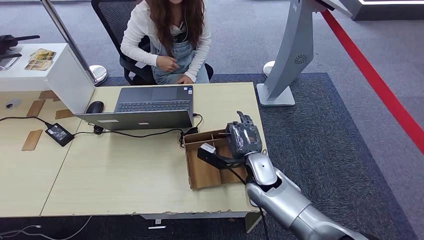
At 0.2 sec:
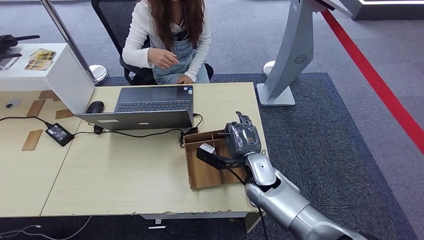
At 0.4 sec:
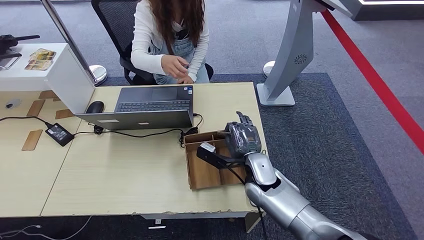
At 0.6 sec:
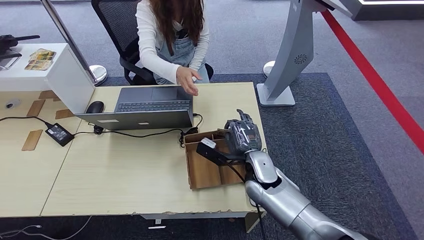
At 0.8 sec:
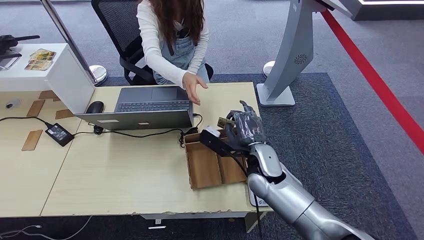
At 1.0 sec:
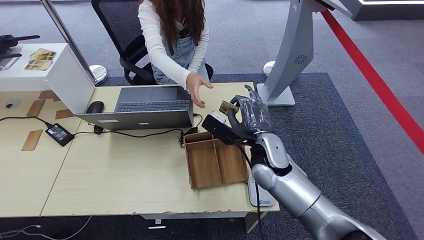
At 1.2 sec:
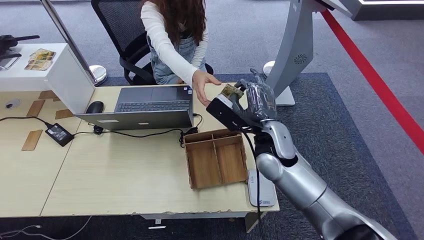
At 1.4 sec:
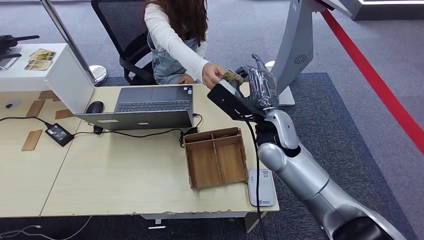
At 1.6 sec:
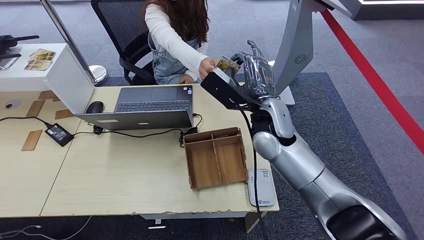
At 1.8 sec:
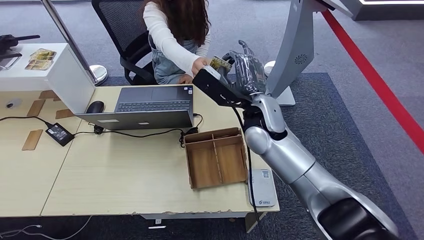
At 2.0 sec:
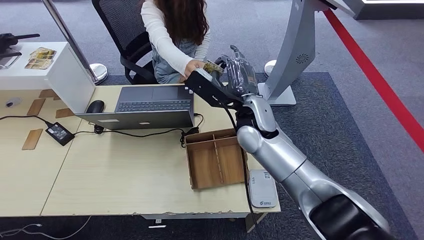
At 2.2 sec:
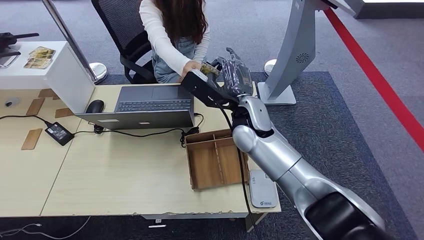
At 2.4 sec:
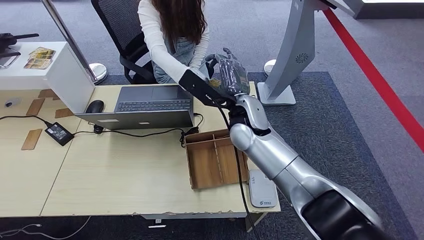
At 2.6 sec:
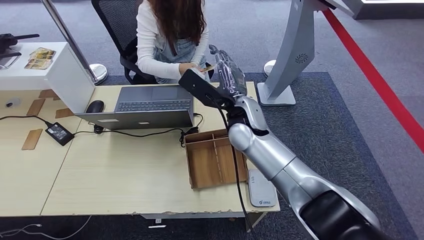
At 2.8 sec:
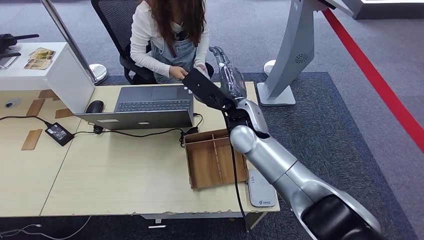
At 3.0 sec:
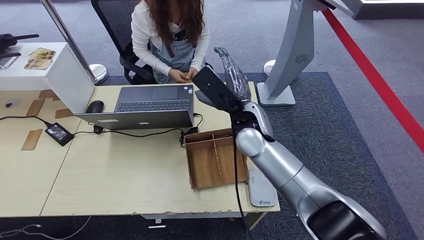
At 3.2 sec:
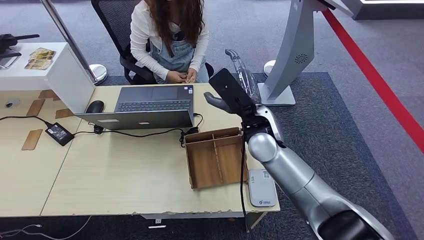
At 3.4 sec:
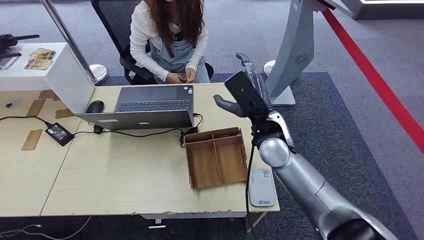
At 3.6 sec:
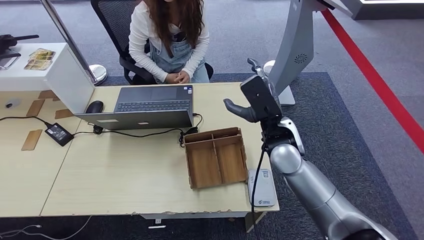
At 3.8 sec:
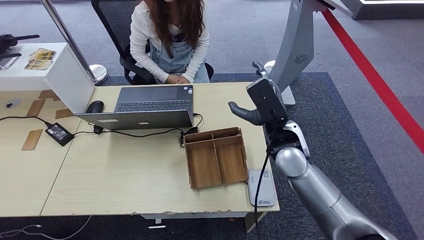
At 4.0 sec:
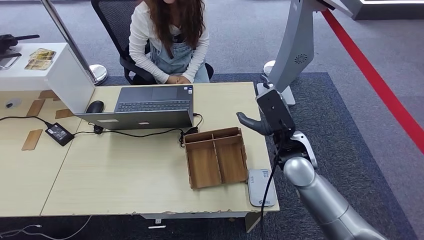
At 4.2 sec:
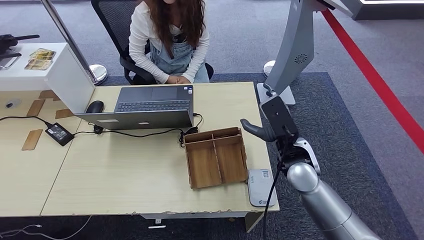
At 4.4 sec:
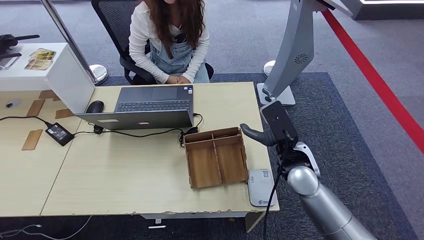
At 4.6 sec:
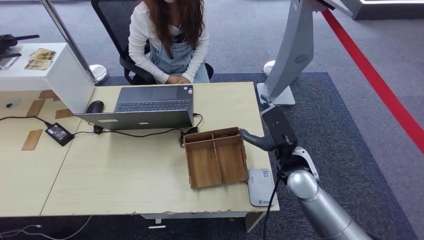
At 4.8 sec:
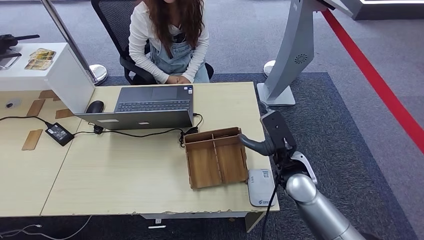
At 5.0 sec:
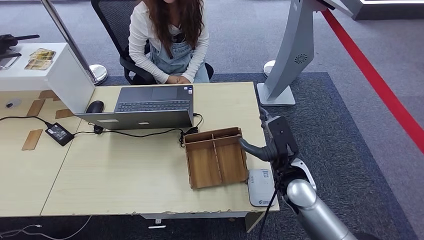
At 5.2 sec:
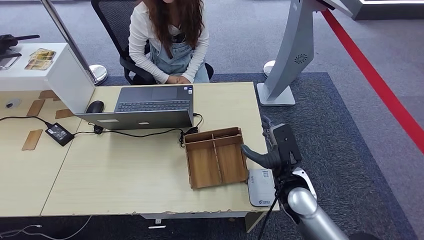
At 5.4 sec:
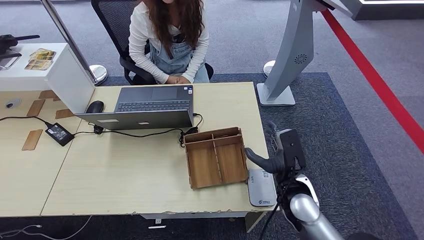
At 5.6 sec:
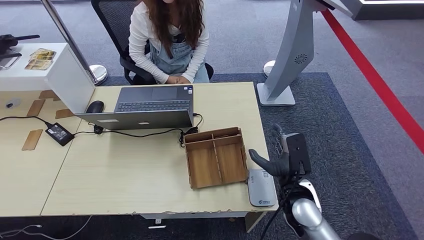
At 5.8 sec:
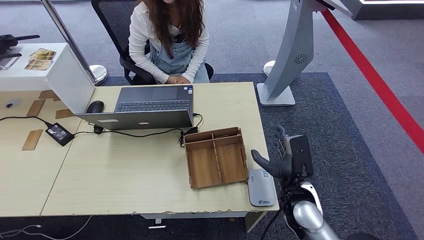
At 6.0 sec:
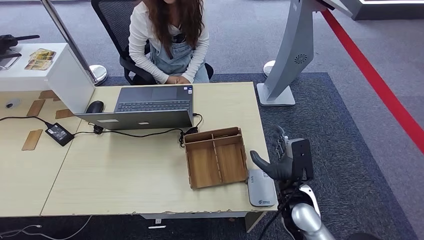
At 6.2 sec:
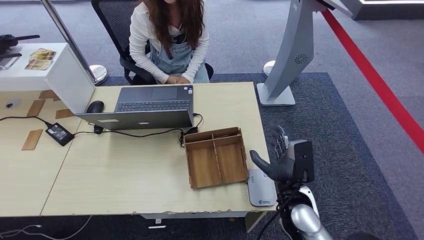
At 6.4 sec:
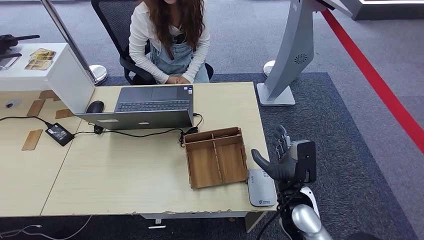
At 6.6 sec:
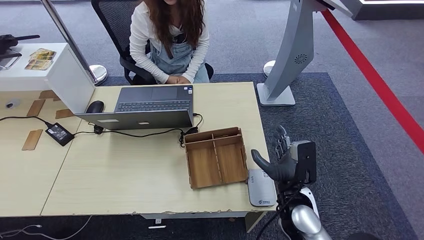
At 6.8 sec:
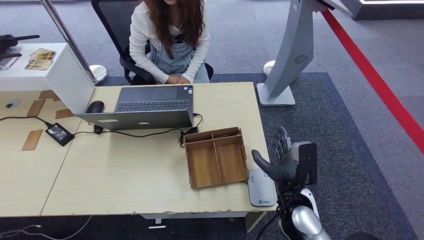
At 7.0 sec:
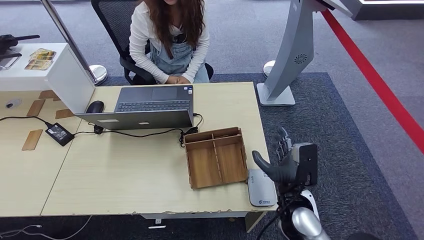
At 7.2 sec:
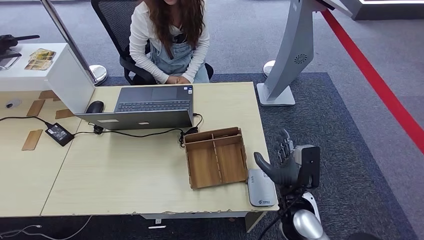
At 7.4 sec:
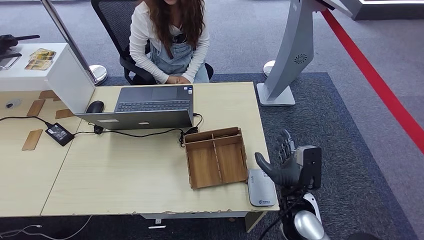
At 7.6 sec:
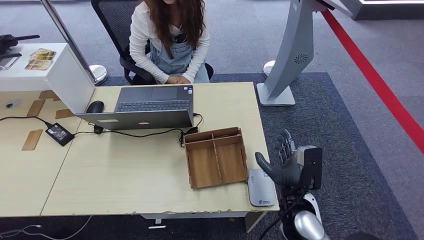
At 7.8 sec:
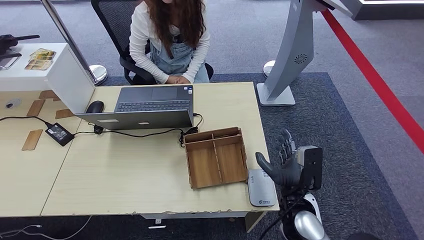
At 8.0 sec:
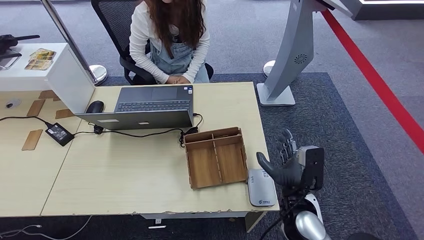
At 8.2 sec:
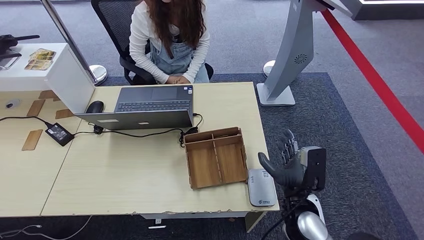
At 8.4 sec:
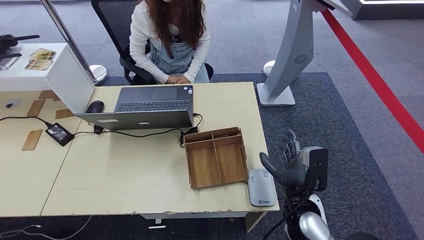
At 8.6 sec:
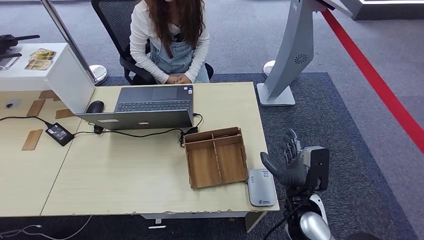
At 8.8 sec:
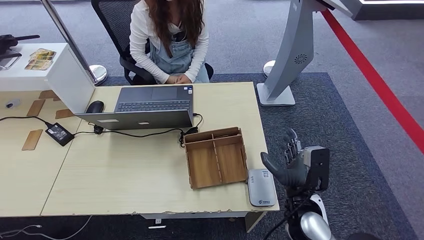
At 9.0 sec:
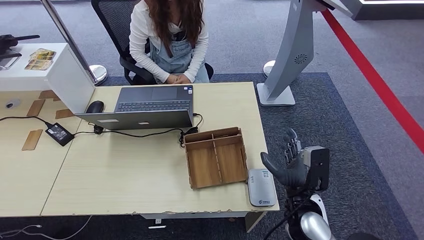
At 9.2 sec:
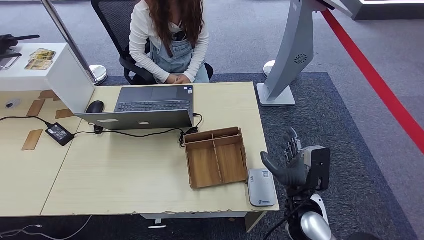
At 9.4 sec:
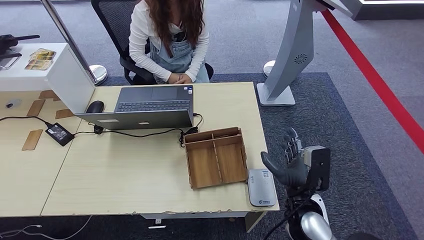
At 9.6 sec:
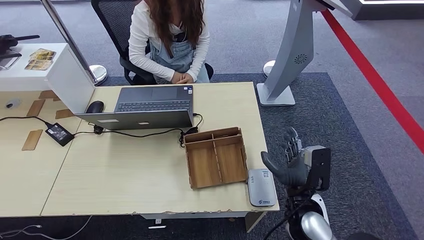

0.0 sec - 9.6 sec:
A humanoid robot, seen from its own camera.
Step, 1.4 sec - 9.6 sec: Hand the room key to the person.
0.0 sec - 1.6 sec: The right hand is displaced upward by approximately 15 cm.
3.2 sec - 4.8 sec: The right hand moves downward, to the right and backward, approximately 15 cm.
4.8 sec - 6.4 sec: The right hand is displaced backward by approximately 5 cm.
6.4 sec - 8.0 sec: There are only small adjustments of the hands.
8.0 sec - 9.6 sec: The two hands keep their place.
